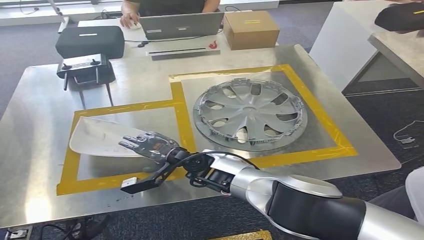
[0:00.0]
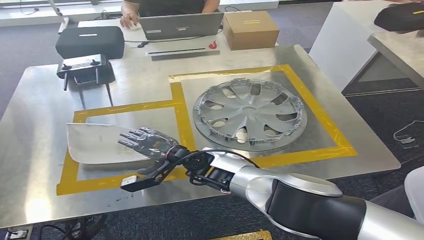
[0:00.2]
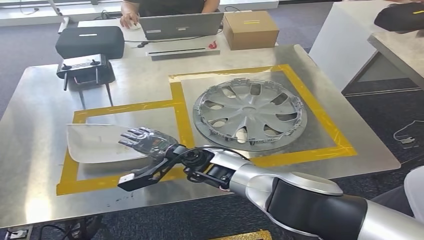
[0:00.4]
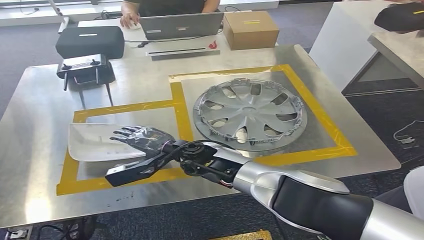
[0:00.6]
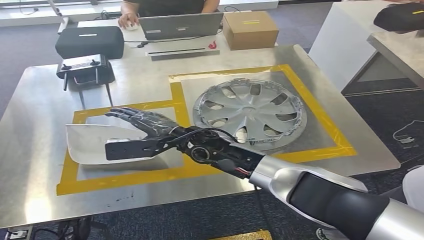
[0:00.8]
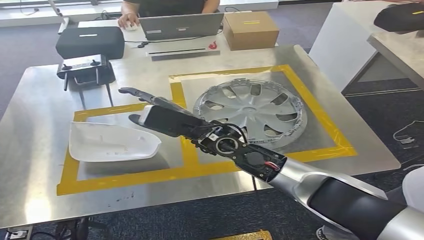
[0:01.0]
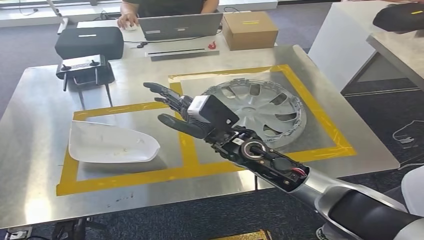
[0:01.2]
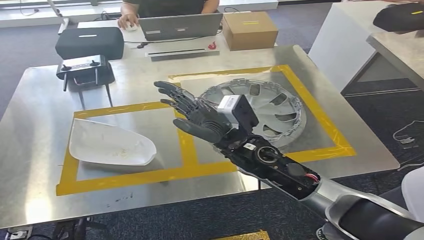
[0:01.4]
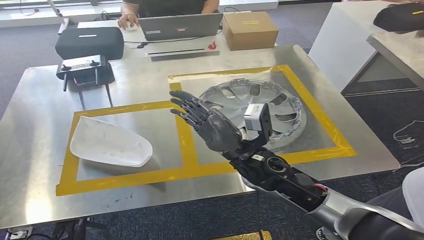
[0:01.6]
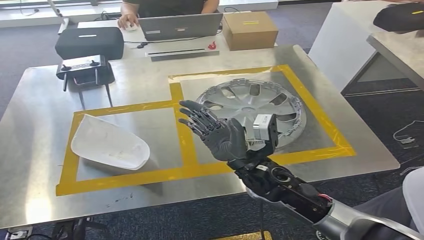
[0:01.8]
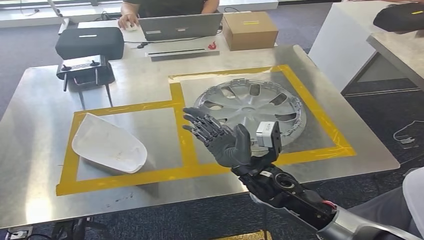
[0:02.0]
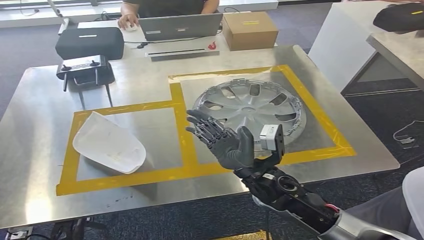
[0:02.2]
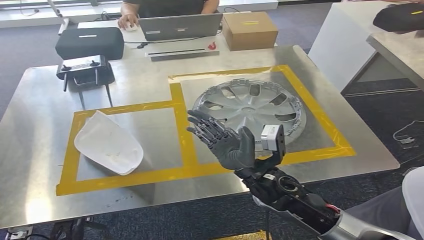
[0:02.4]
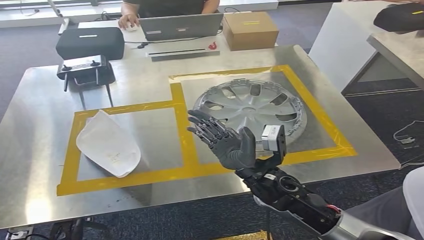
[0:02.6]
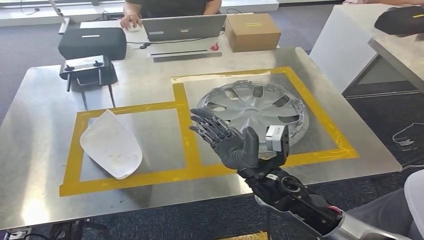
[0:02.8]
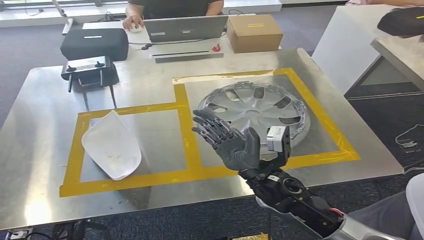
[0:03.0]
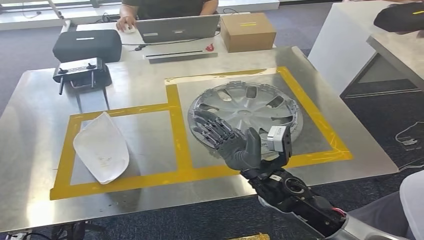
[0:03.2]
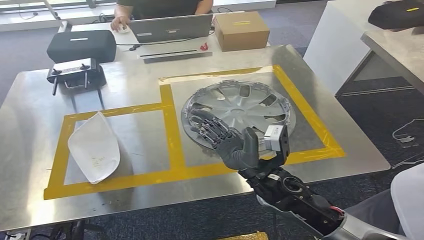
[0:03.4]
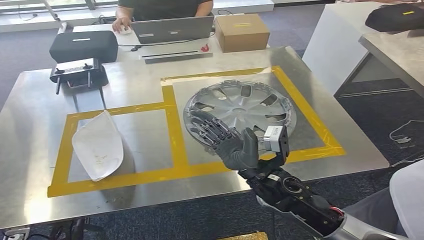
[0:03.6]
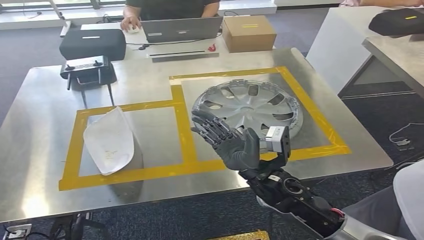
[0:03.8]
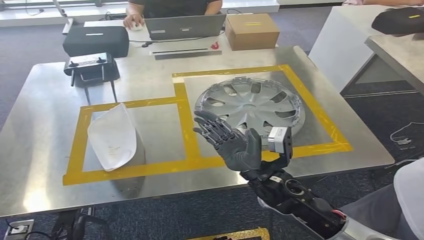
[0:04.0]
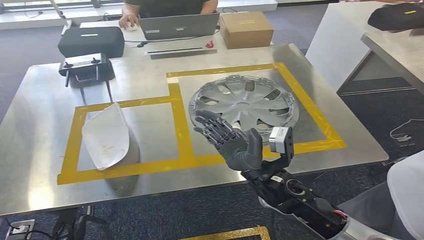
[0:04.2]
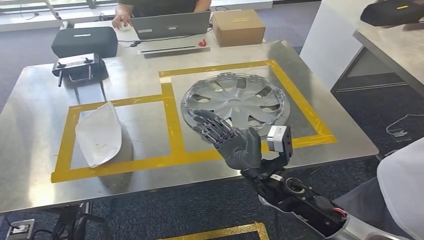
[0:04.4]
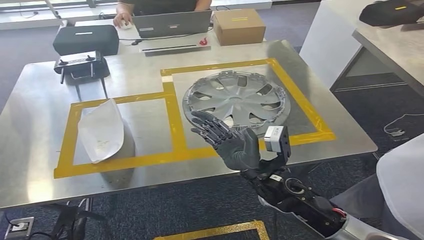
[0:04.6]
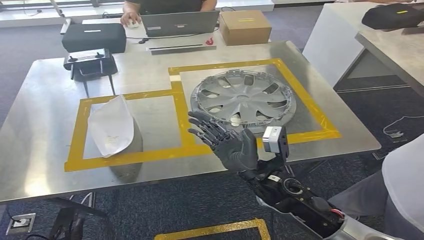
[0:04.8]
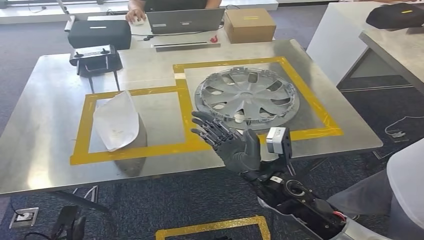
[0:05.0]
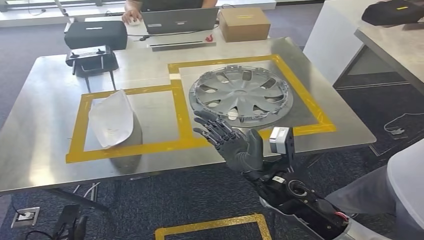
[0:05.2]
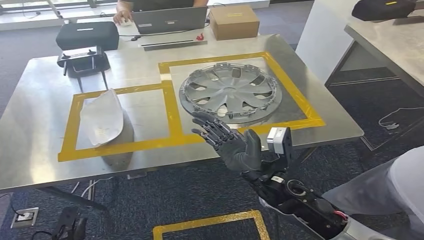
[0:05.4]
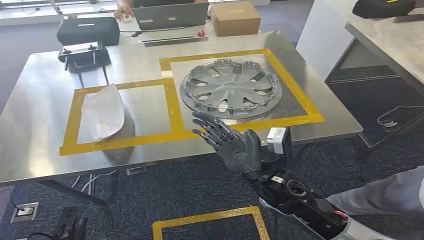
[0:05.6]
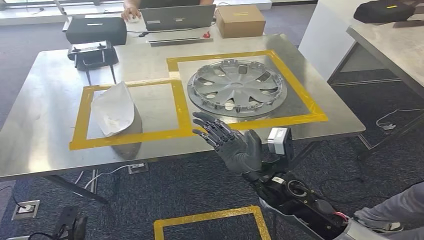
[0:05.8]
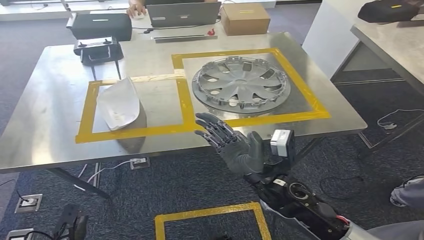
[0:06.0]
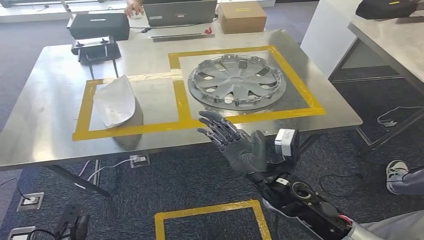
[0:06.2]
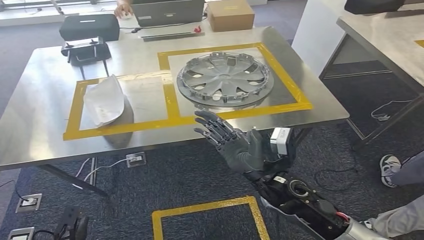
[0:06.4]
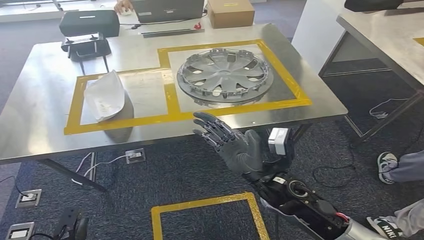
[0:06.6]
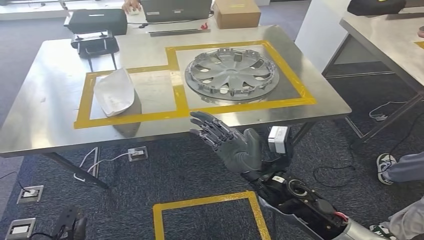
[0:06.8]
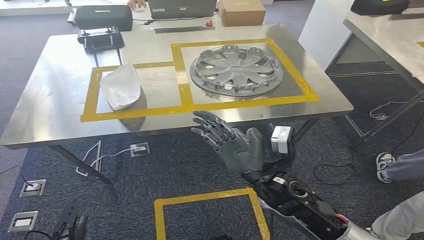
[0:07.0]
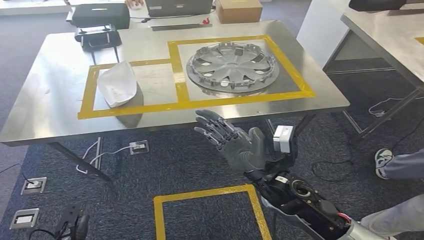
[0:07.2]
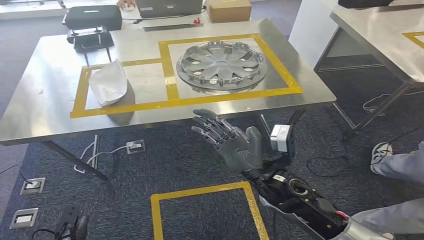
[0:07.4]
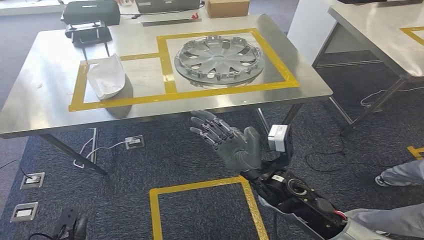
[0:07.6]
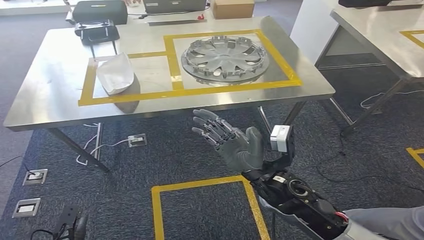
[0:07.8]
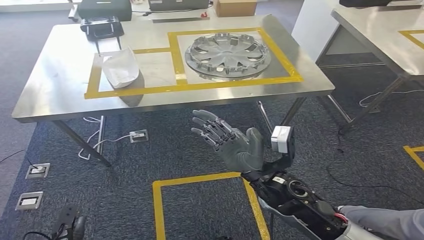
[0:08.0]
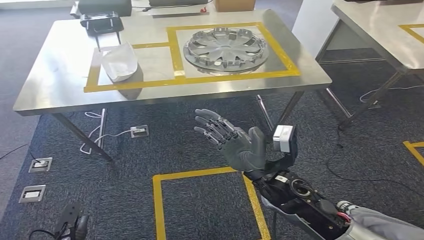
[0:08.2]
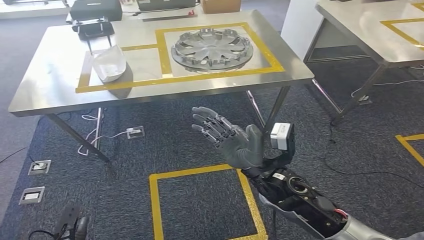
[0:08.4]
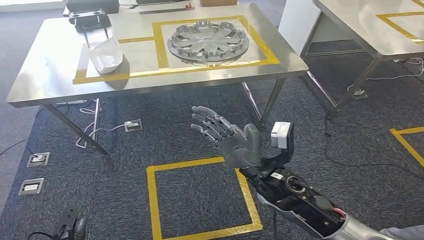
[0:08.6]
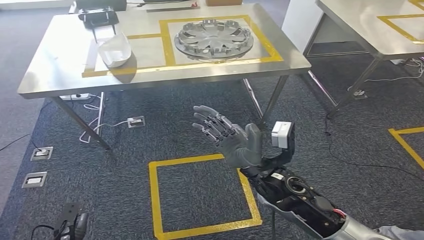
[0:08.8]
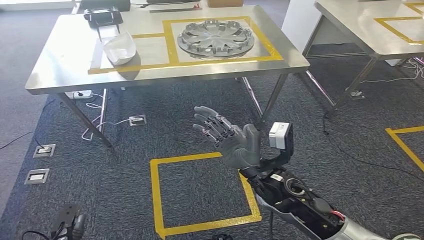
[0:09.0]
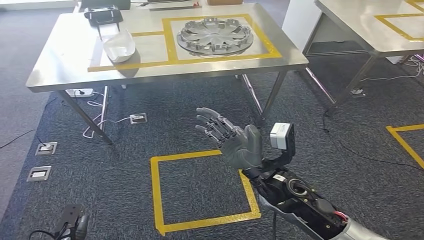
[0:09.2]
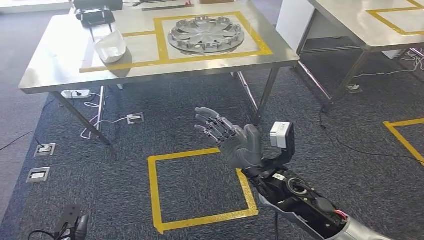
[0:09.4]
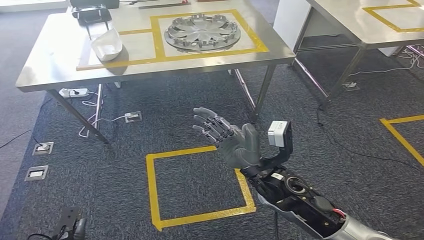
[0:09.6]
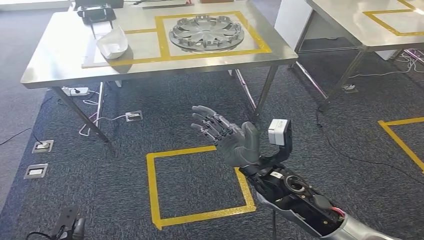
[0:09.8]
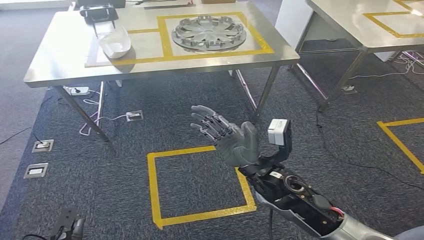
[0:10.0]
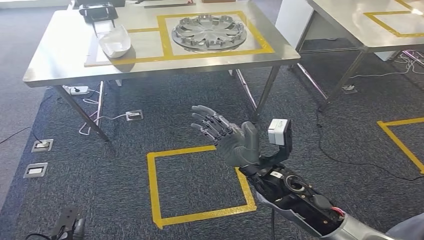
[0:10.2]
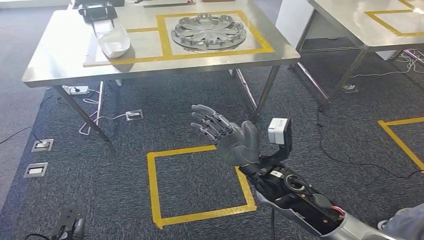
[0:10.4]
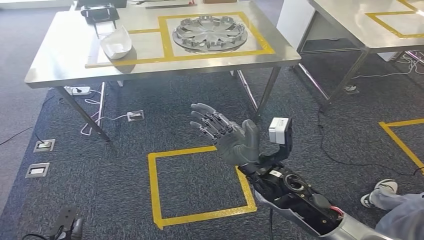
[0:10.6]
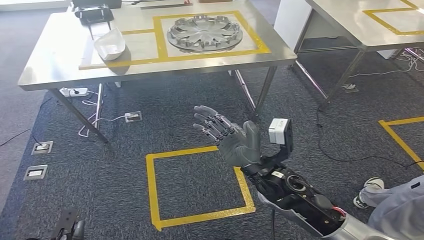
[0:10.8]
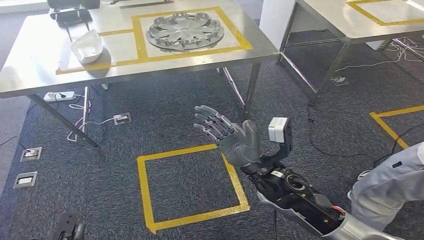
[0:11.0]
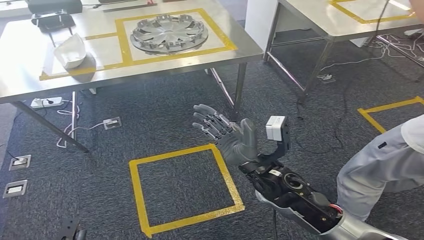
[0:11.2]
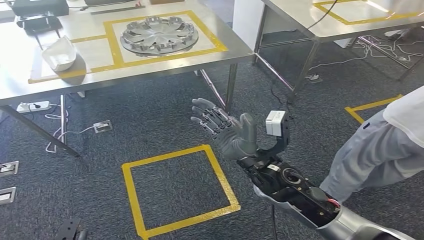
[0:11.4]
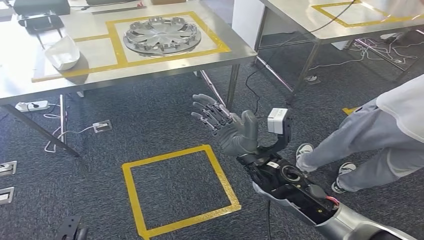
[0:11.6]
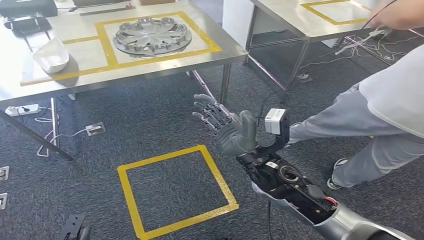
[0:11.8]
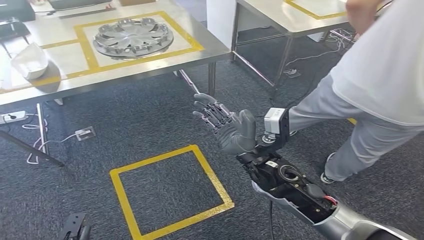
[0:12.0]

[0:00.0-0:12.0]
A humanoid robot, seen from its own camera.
0:00.0 to 0:01.6: The right hand moves to the right, upward and backward, about 15 cm.

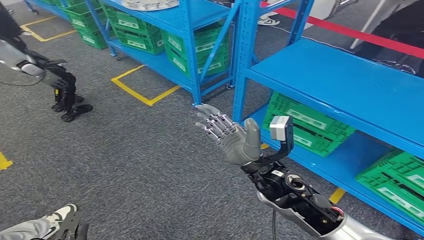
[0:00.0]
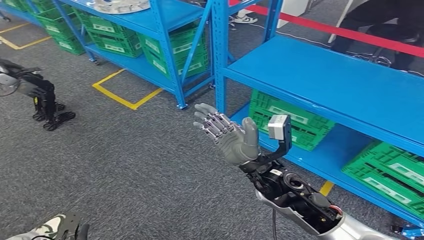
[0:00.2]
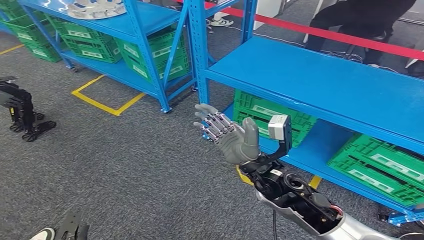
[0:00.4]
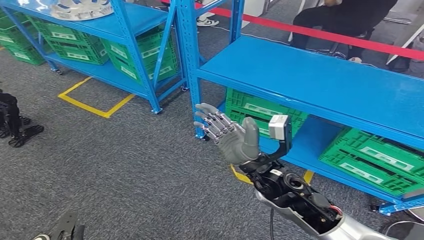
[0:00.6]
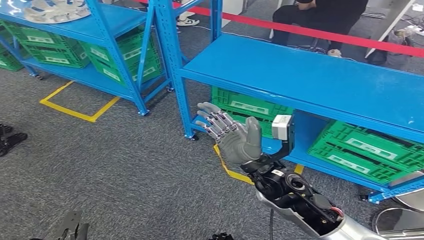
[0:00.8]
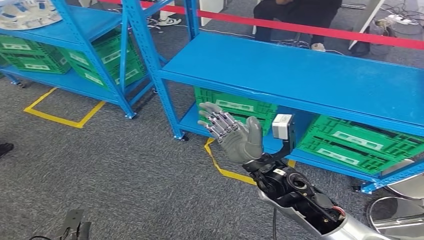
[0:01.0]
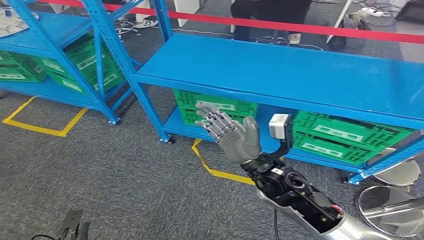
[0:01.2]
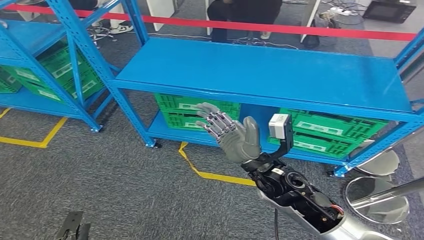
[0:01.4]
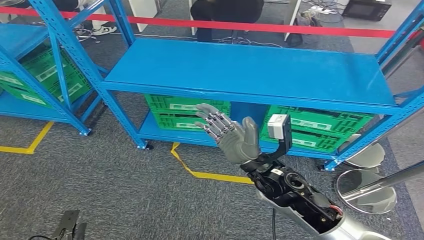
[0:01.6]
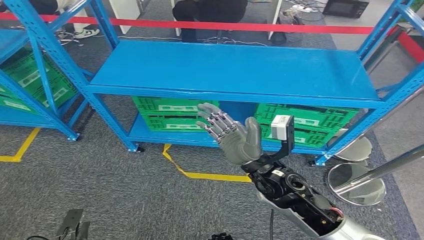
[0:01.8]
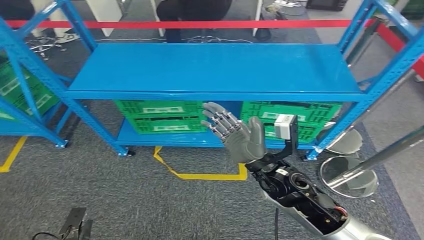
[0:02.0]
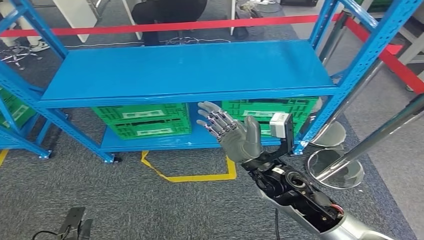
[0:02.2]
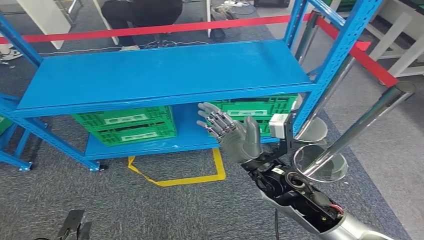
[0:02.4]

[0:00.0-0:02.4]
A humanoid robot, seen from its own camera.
Step, 0:00.0 to 0:02.4: Move to the initial position at the workbench.
